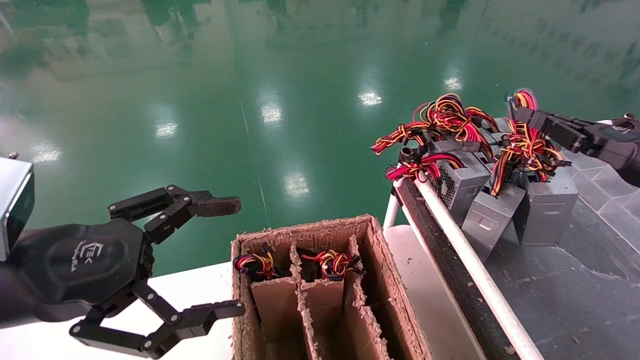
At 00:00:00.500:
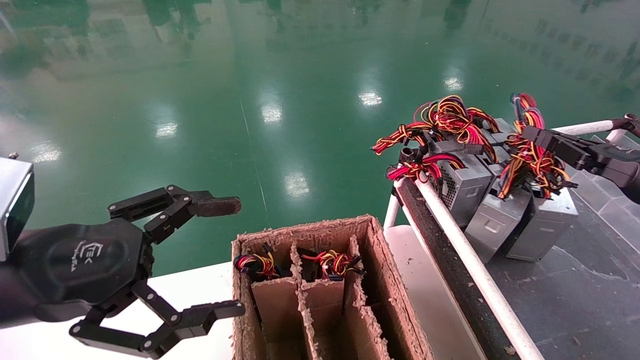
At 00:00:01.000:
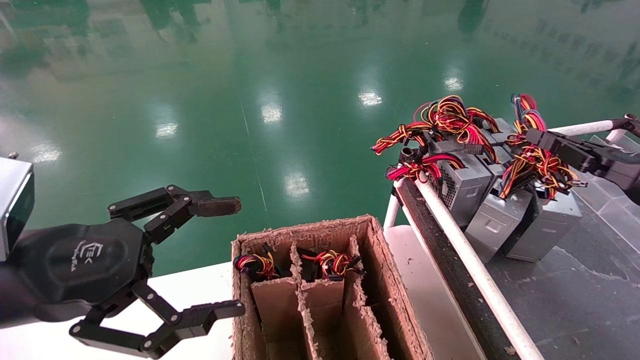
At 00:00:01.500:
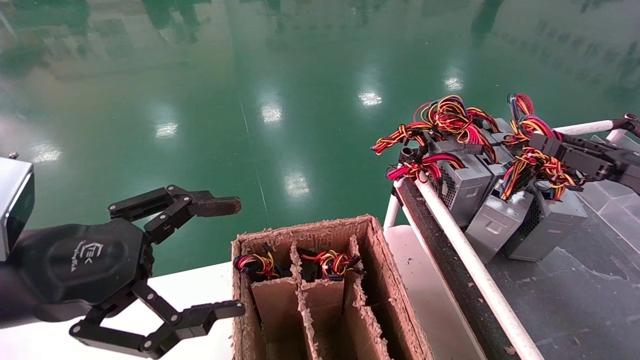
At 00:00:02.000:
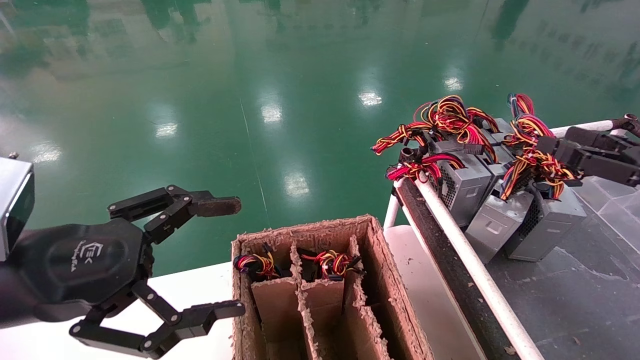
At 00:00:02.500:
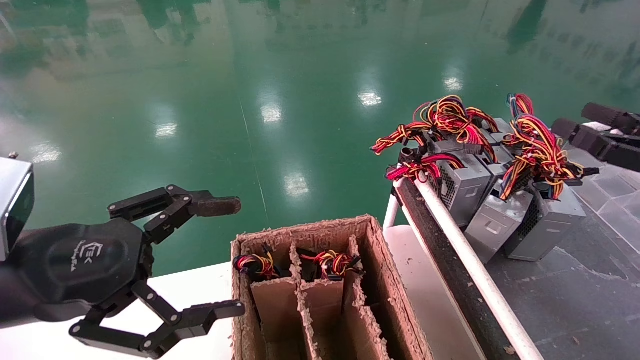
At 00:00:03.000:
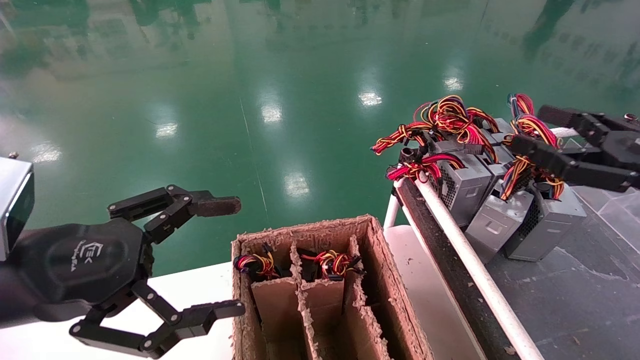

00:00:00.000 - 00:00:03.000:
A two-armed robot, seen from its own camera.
00:00:00.000 - 00:00:01.500: The grippers make only small movements.
00:00:01.500 - 00:00:03.000: The right gripper goes roughly 5 cm to the left, and opens.

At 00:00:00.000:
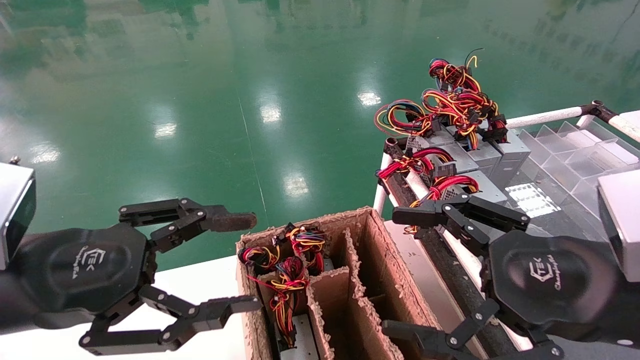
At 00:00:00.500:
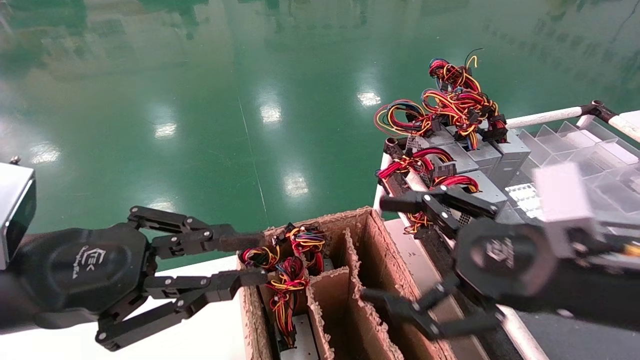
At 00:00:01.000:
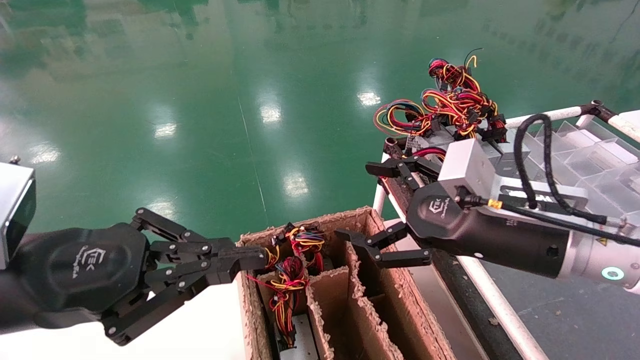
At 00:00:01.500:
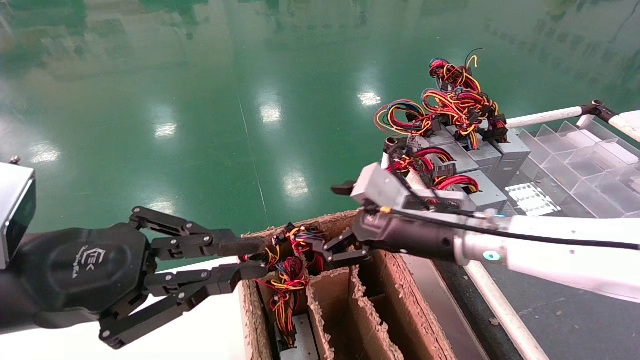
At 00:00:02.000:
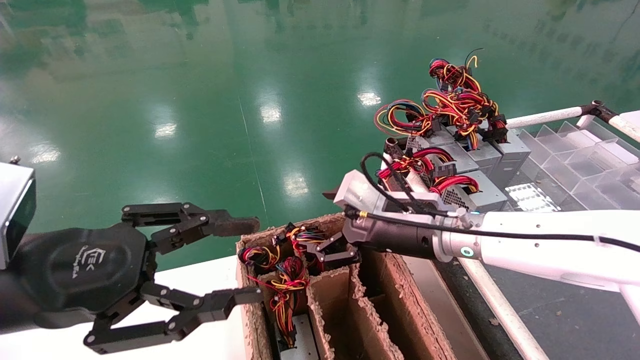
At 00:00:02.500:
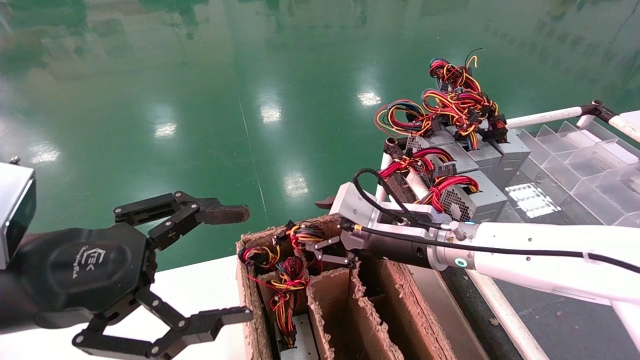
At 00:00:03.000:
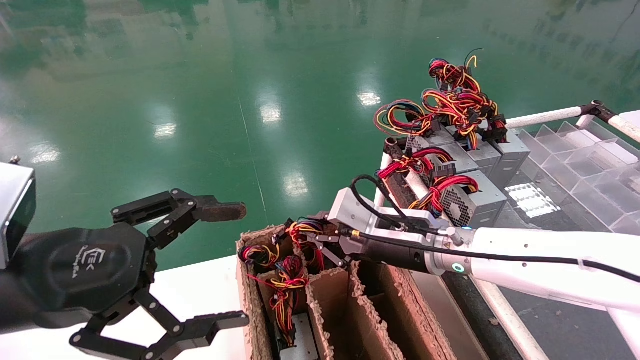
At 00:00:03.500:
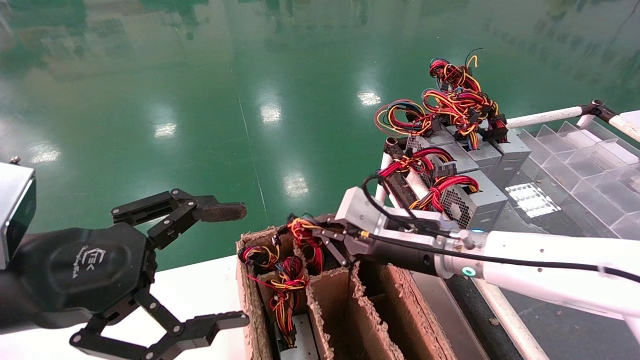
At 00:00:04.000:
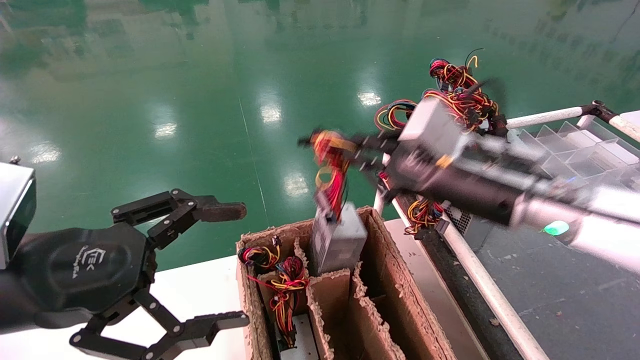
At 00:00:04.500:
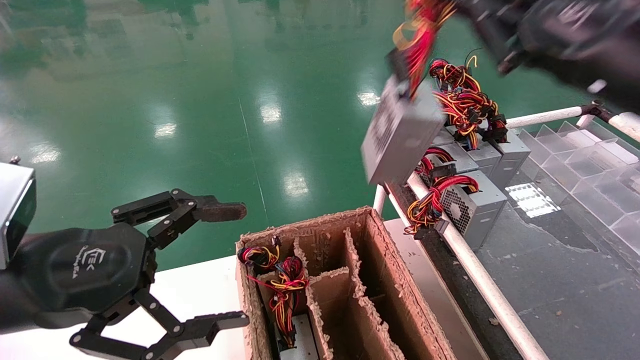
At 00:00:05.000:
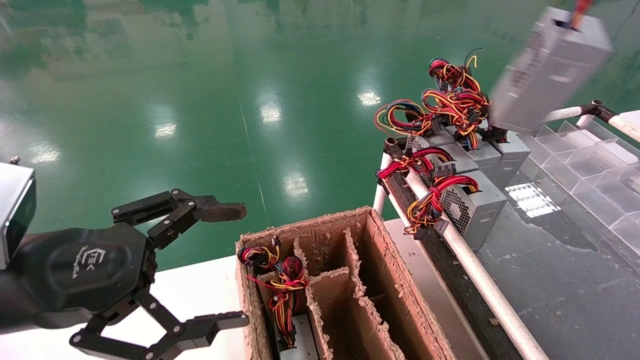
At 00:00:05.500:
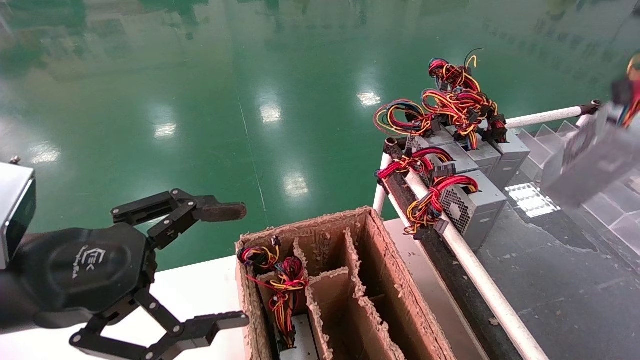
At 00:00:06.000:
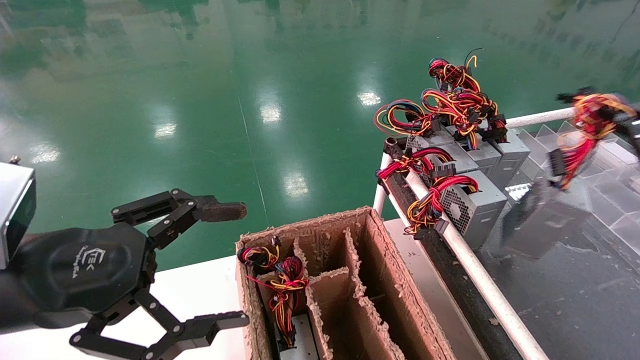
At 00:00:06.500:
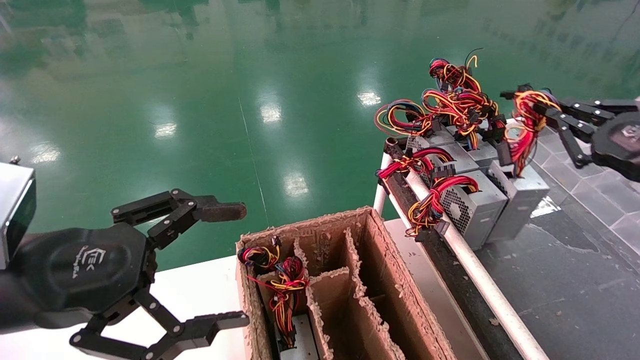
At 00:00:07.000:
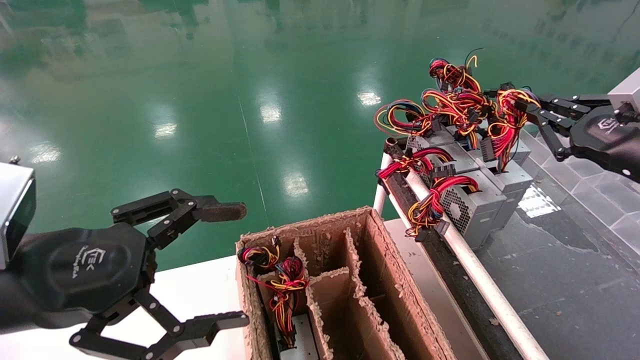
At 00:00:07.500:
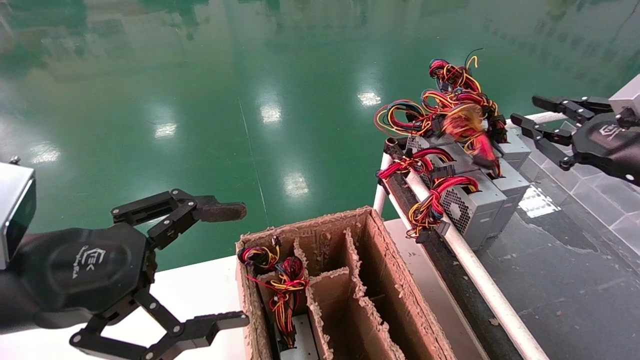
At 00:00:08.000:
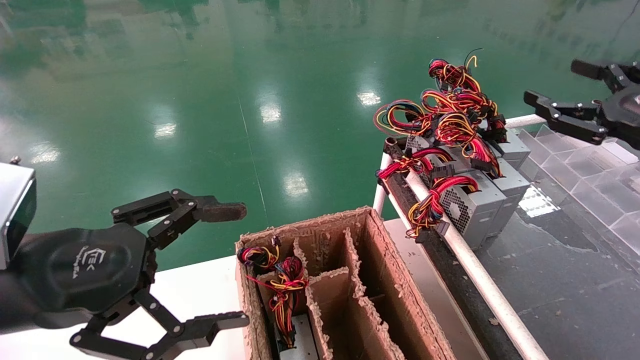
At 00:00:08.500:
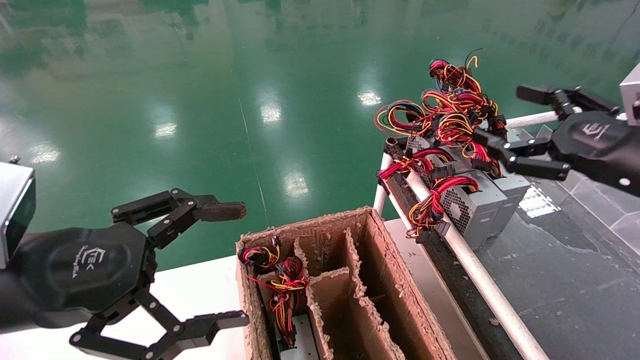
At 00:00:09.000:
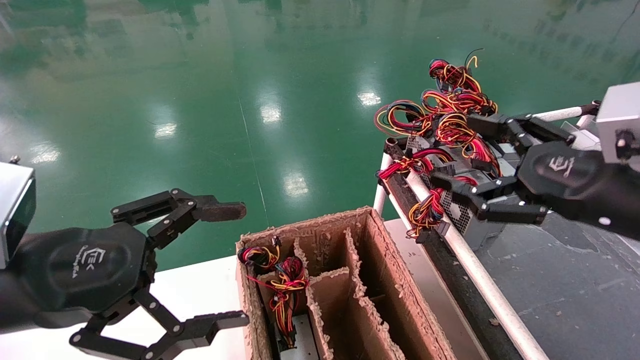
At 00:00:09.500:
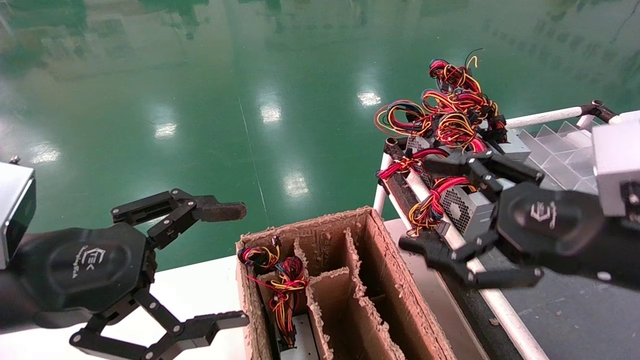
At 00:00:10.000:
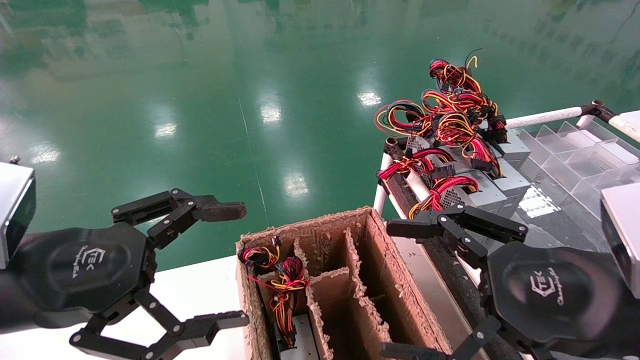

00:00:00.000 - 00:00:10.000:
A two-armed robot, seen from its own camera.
Step, 00:00:01.500 - 00:00:03.000: Grab and lift the power supply from the large box.
Step, 00:00:03.500 - 00:00:07.000: Place the power supply on the operating table.
00:00:00.000 - 00:00:02.000: The right gripper heads forward and to the left, covering roughly 20 cm; the left gripper closes, then opens again.
00:00:02.000 - 00:00:04.000: The right gripper moves upward, to the right and backward, approximately 10 cm, and closes its fingers, while the left gripper opens its fingers.
00:00:04.000 - 00:00:06.000: The right gripper goes roughly 25 cm to the right.
00:00:06.000 - 00:00:08.000: The right gripper travels forward by some 5 cm, and opens.
00:00:08.000 - 00:00:10.000: The right gripper heads to the left and backward, covering about 20 cm, and opens.
